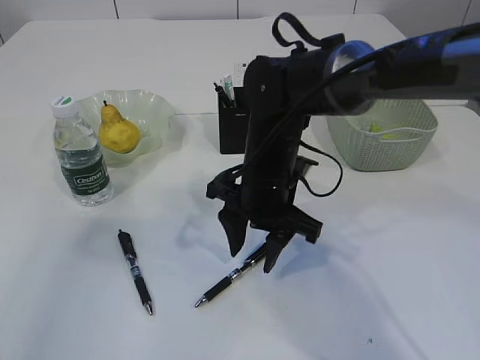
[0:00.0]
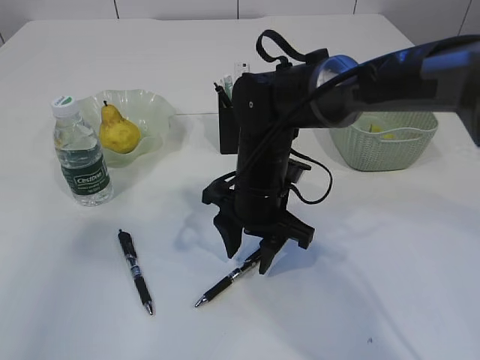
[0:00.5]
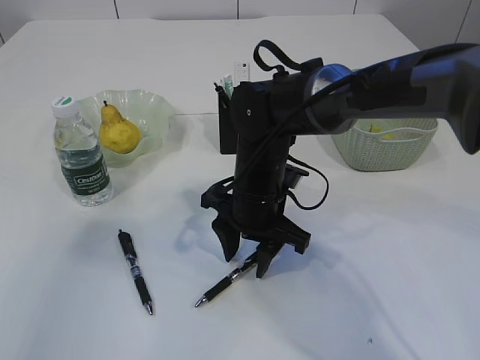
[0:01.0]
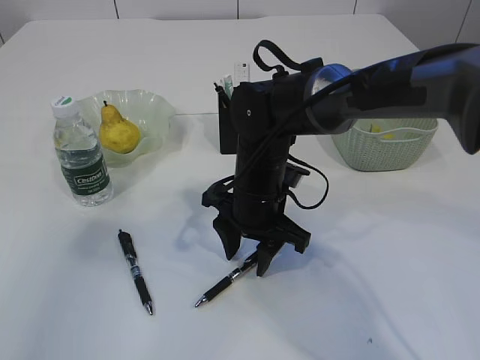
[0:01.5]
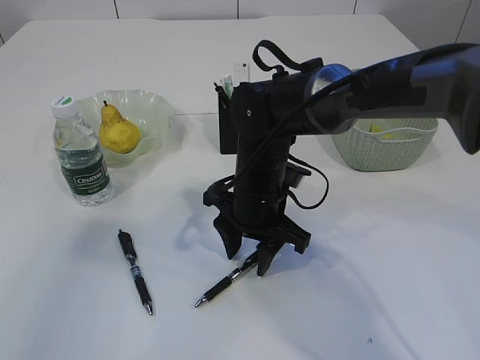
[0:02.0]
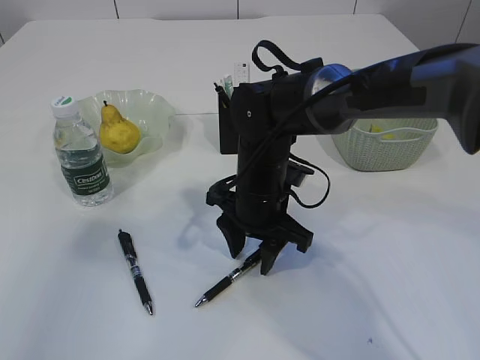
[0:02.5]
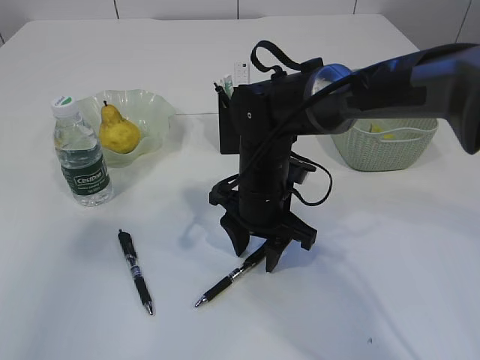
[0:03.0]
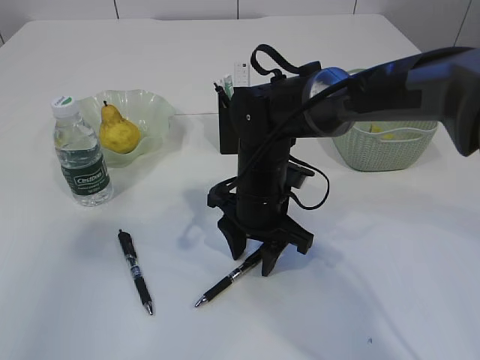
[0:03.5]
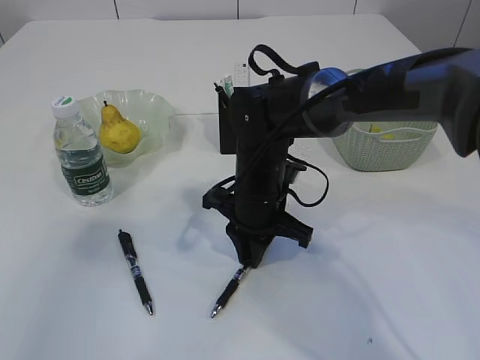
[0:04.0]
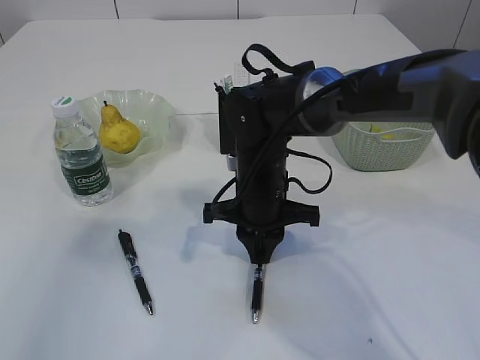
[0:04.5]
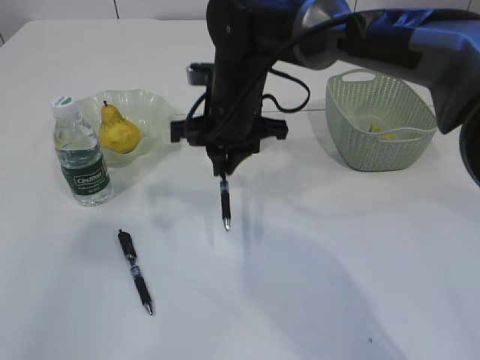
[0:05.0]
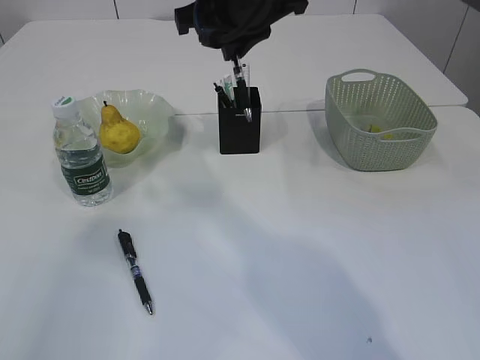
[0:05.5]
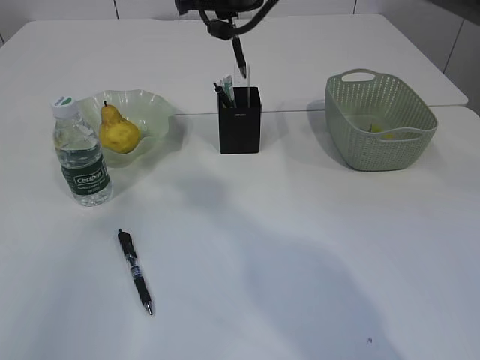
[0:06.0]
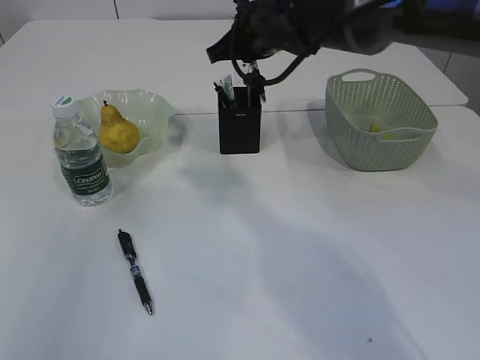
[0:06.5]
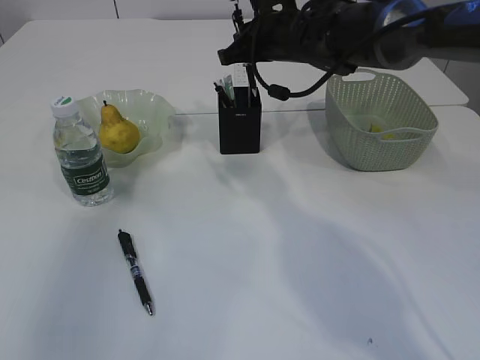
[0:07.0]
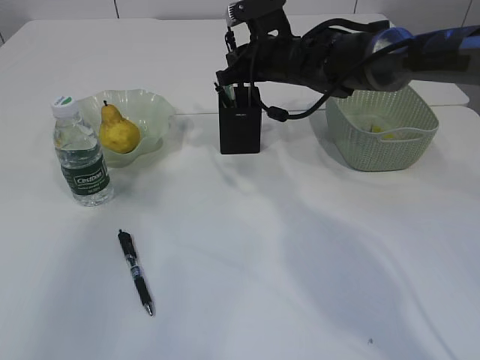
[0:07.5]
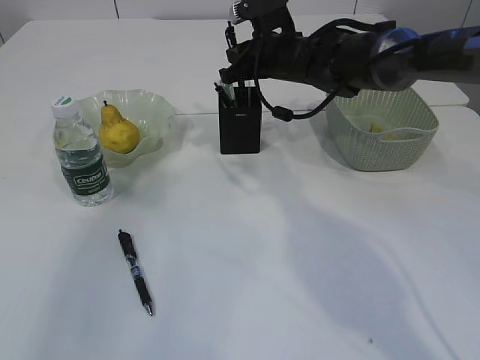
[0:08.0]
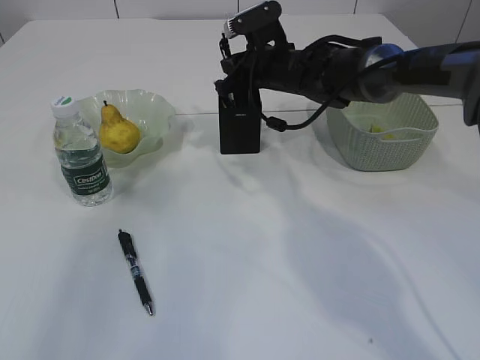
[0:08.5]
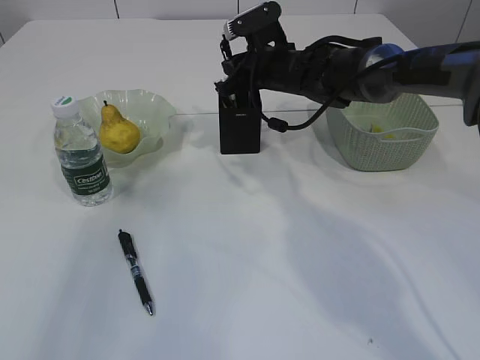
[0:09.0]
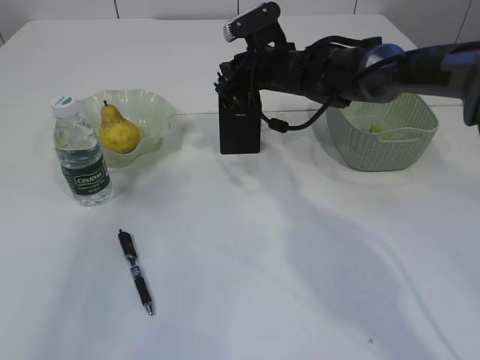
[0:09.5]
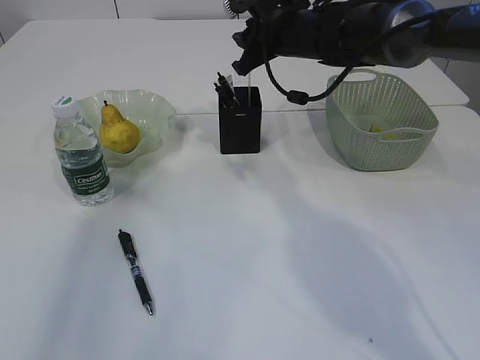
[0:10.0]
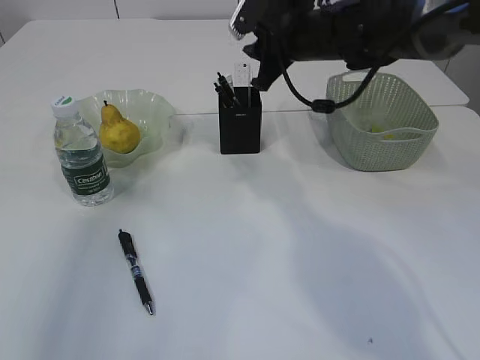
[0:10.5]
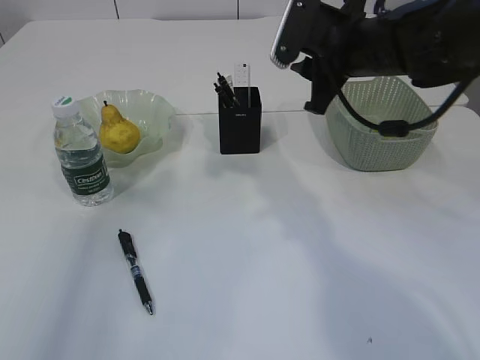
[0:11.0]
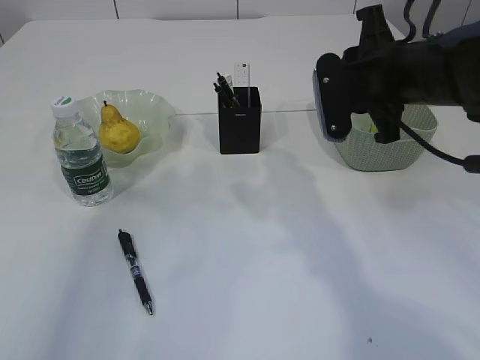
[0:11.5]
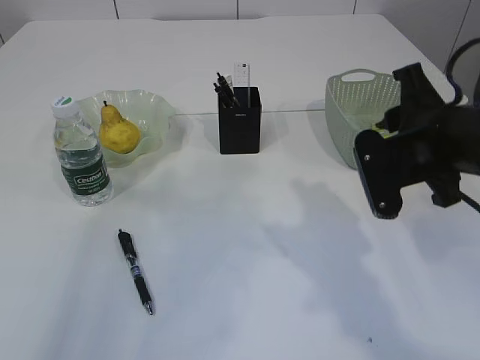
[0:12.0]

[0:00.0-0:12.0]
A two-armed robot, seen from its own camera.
Step, 0.0 to 4.5 s: Pick up the pen with right arm.
Step, 5.0 to 10.5 s: Place the pen into the pen holder.
0.0 to 2.0 s: The grippers stay close to where they were, moving slightly.
2.0 to 4.0 s: The right gripper closes up.
4.0 to 6.0 s: The right gripper shifts some 20 cm upward.
6.0 to 8.0 s: The right gripper heads downward, forward and to the right, covering approximately 15 cm.
10.0 to 12.0 s: The right gripper goes some 25 cm backward and to the right.

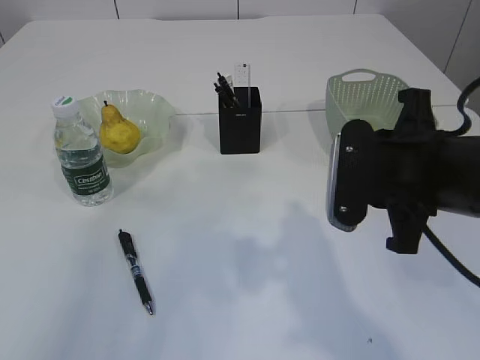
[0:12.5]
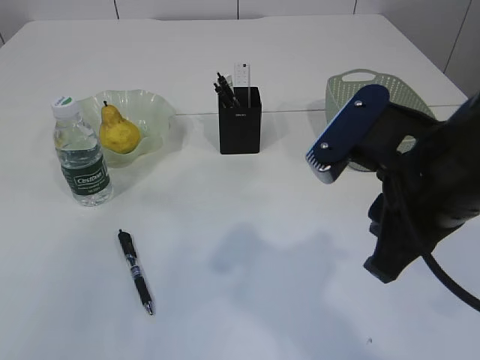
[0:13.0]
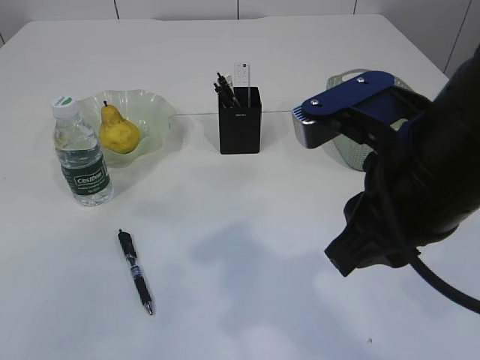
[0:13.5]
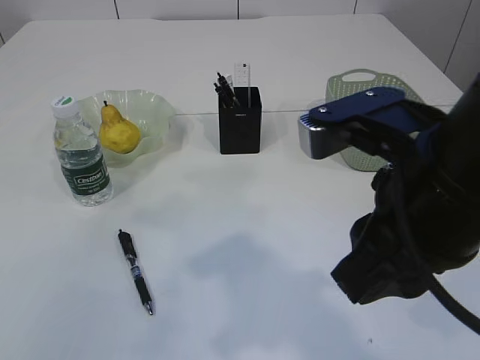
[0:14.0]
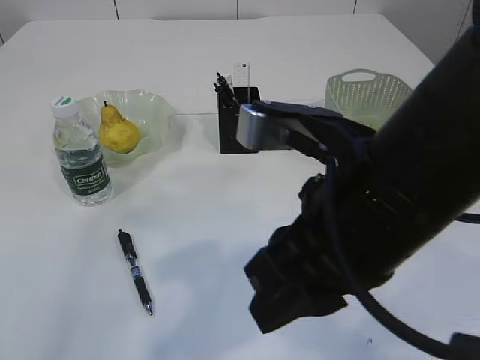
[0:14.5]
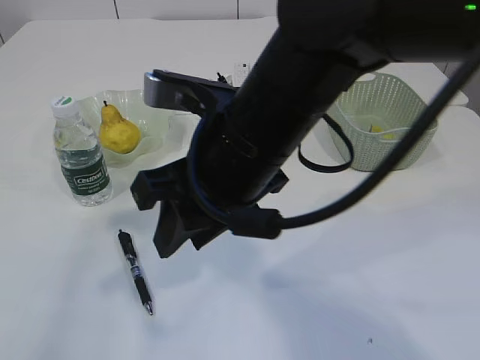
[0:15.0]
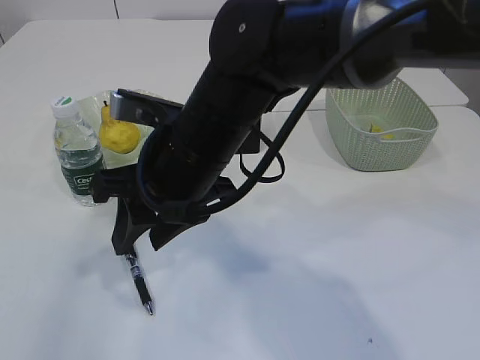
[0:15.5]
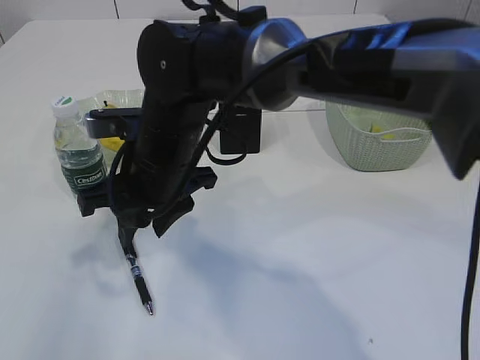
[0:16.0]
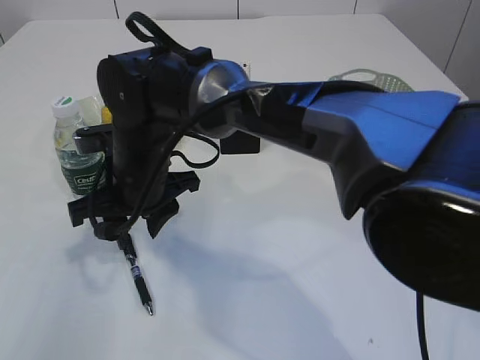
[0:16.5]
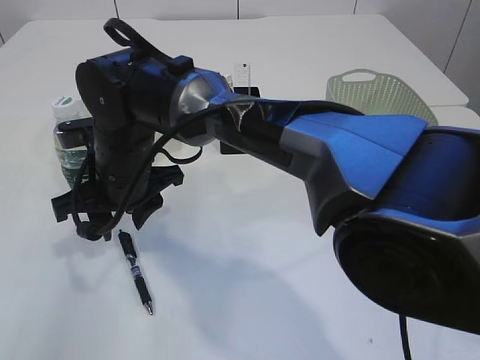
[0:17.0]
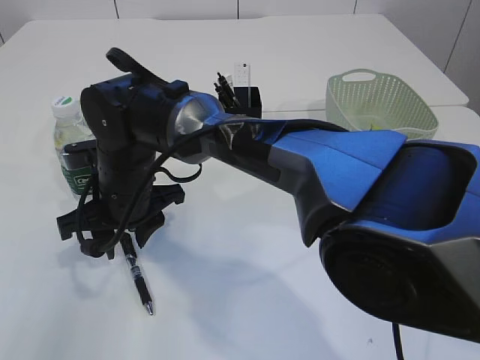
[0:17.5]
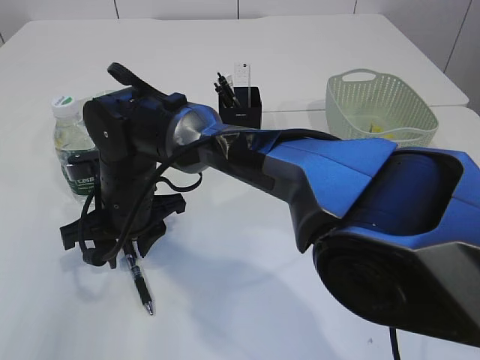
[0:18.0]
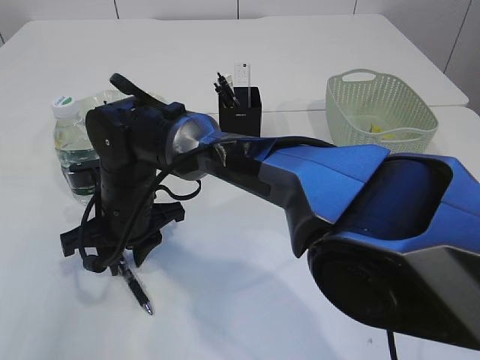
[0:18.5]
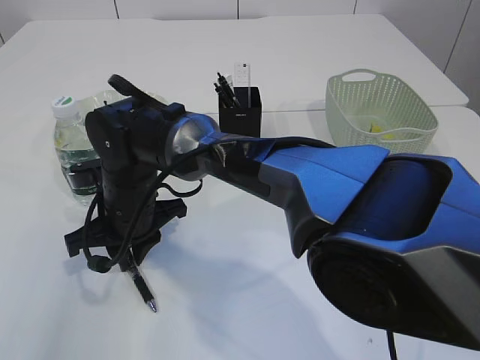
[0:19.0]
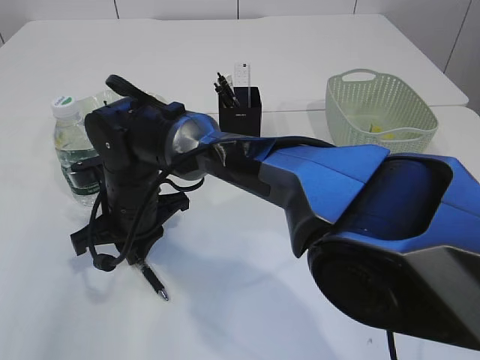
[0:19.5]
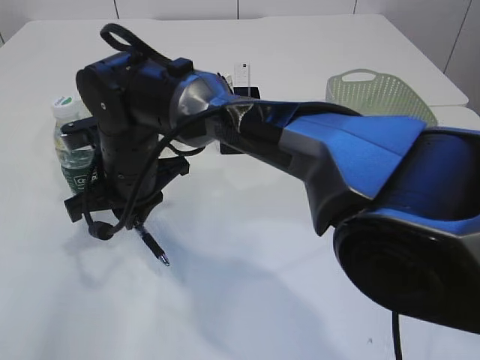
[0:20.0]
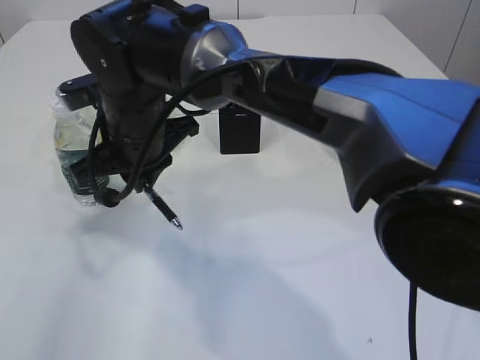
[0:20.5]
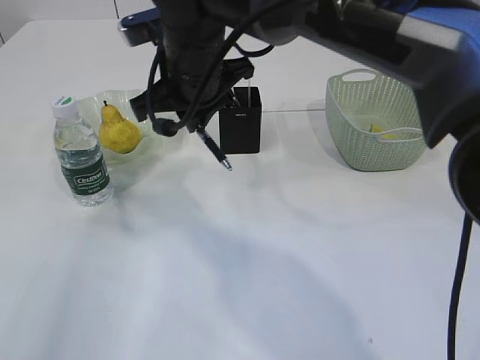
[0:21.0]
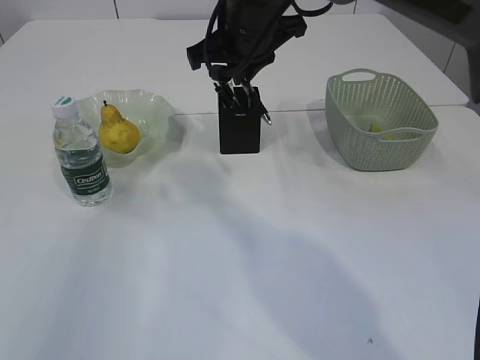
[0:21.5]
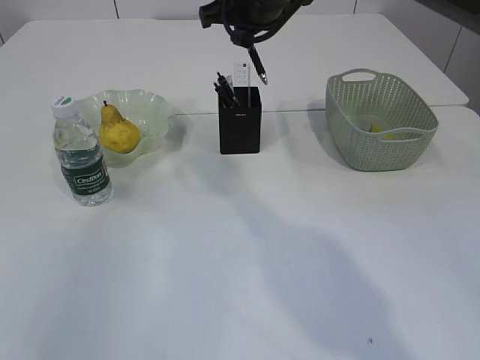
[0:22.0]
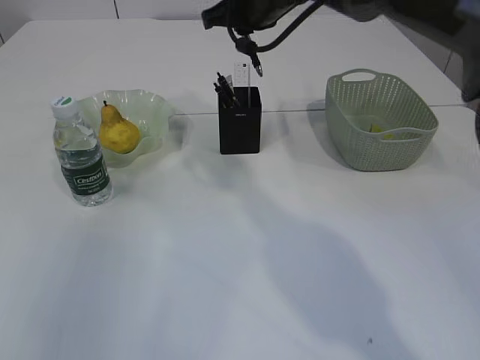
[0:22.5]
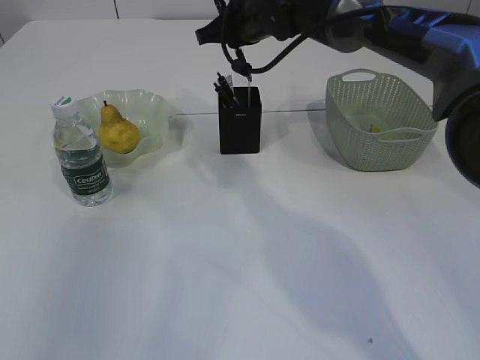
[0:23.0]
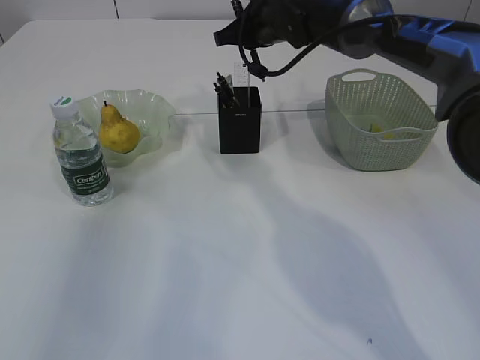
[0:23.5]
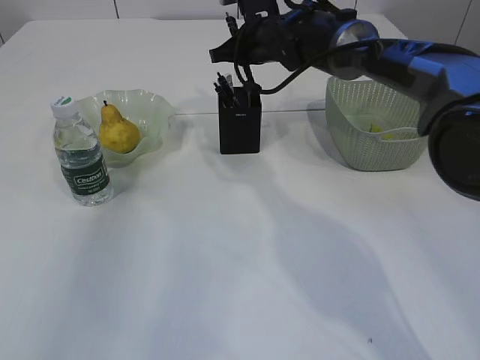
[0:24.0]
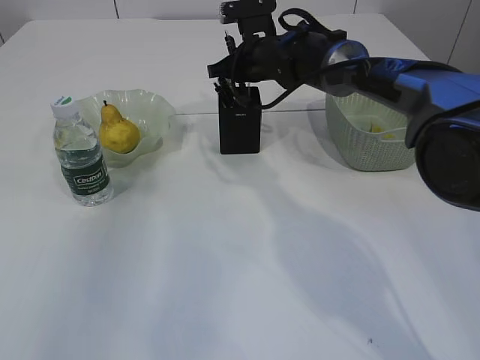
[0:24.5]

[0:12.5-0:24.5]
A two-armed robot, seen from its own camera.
Step, 12.5 to 20.0 s: Pick up the pen with right arm.
12.5 to 14.5 s: The right gripper shifts approximately 10 cm to the left, backward and upward.
14.5 to 16.5 s: The right gripper heads to the left, forward and downward, covering approximately 25 cm.
16.5 to 18.5 s: The right gripper moves downward, approximately 5 cm.
18.5 to 20.5 s: The right gripper is displaced upward by about 10 cm, and closes.
20.5 to 22.5 s: The right gripper travels to the right, forward and upward by roughly 20 cm.
22.5 to 24.5 s: The right gripper is displaced downward by roughly 10 cm.

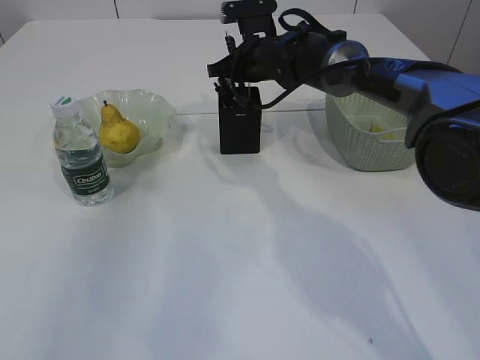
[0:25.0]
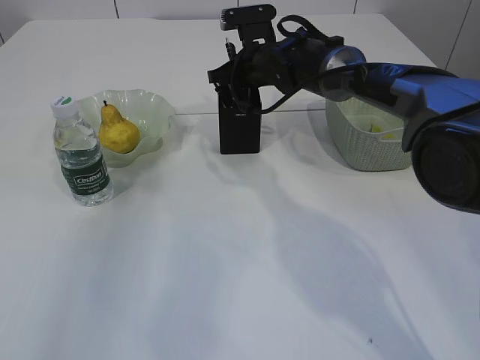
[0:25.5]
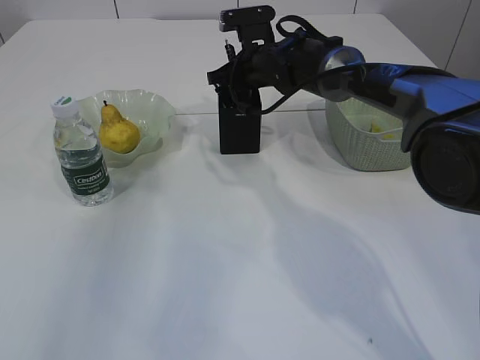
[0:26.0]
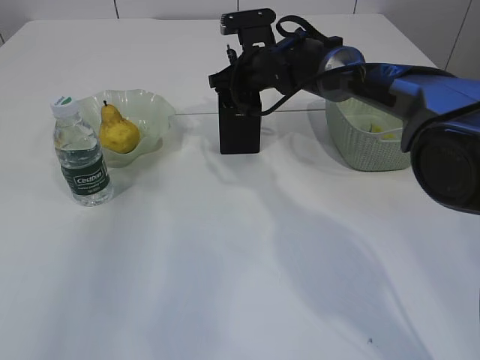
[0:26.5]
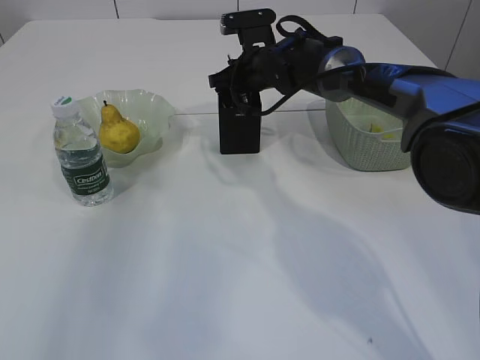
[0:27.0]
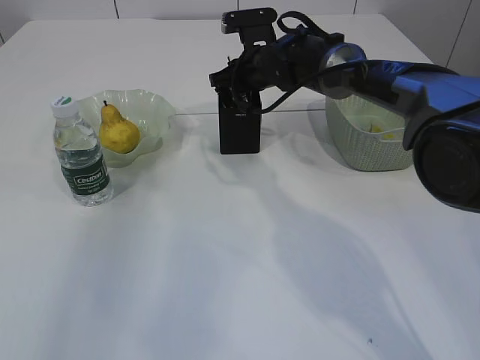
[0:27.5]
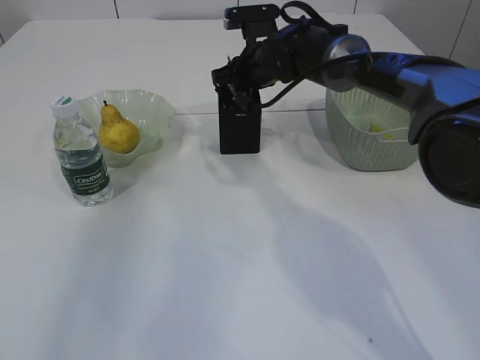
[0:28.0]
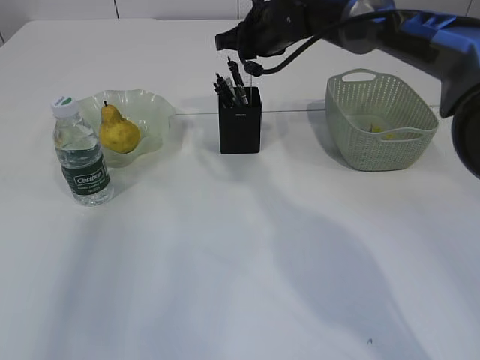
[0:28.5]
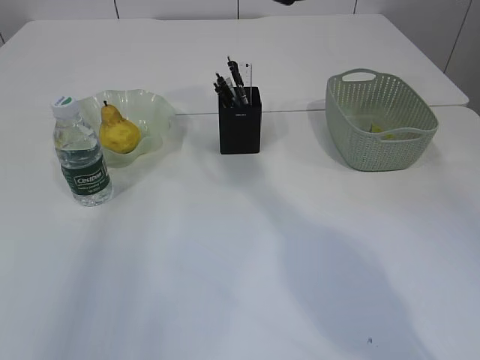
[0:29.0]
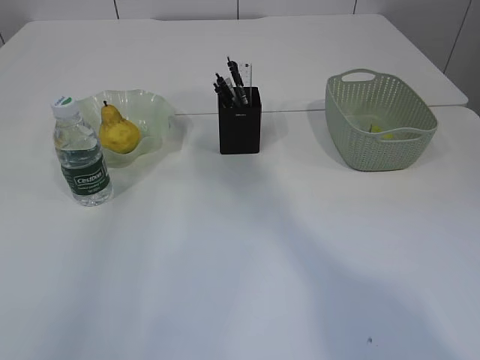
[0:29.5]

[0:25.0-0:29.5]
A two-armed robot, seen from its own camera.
Step, 25.0 to 28.5 s: Place the pen into the pen holder.
25.0 to 27.0 s: Neither gripper changes place.
27.0 to 29.5 s: The right gripper goes approximately 35 cm upward and backward.
